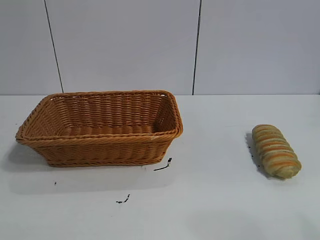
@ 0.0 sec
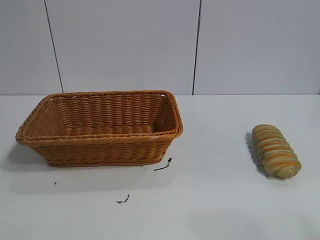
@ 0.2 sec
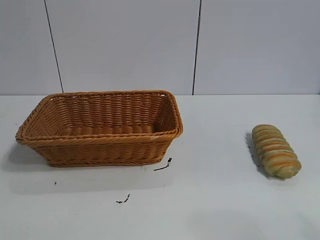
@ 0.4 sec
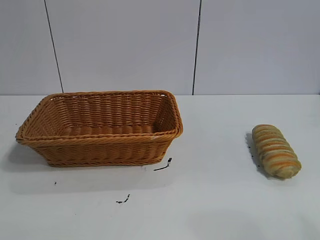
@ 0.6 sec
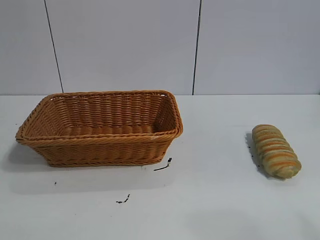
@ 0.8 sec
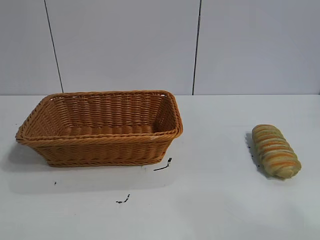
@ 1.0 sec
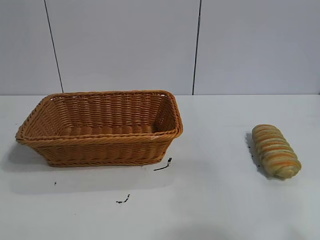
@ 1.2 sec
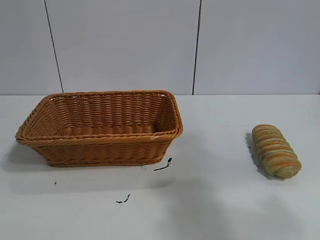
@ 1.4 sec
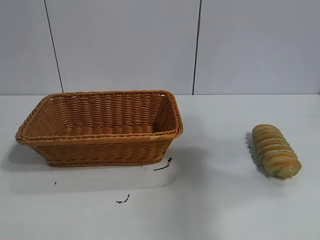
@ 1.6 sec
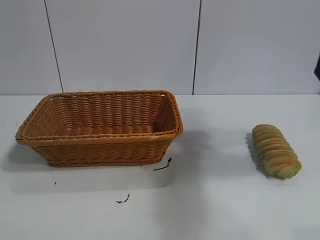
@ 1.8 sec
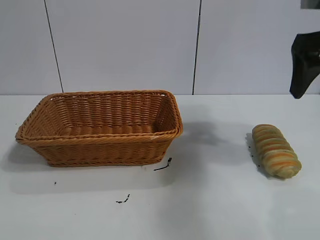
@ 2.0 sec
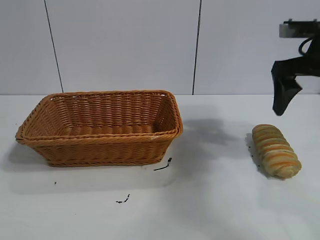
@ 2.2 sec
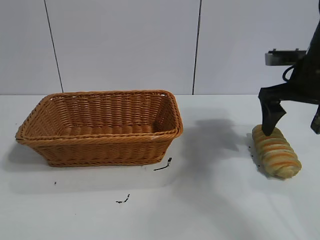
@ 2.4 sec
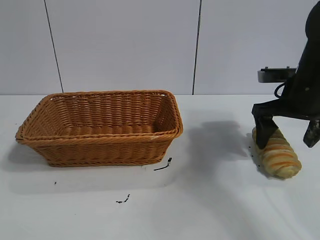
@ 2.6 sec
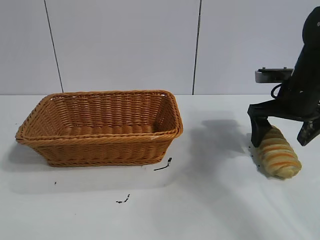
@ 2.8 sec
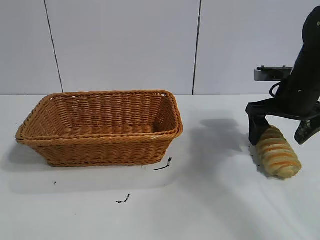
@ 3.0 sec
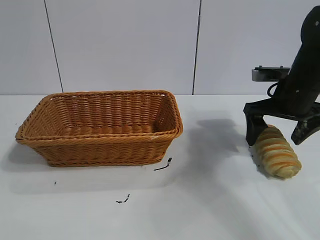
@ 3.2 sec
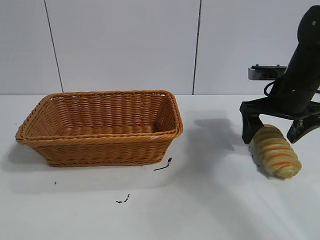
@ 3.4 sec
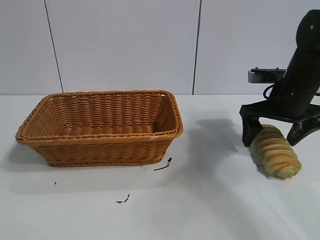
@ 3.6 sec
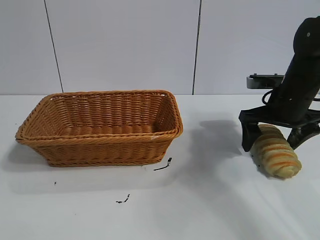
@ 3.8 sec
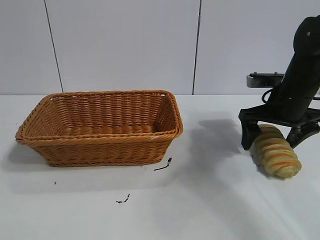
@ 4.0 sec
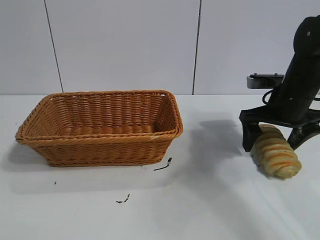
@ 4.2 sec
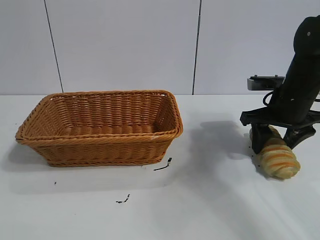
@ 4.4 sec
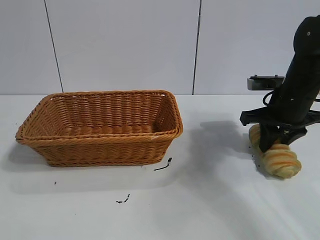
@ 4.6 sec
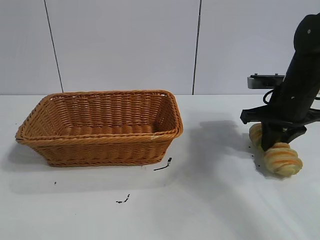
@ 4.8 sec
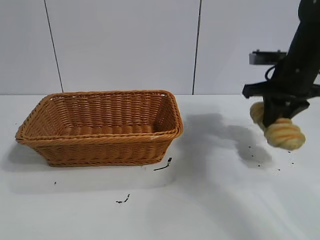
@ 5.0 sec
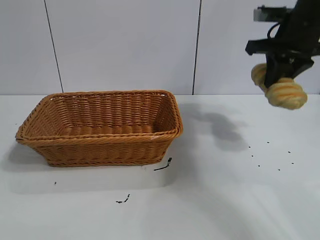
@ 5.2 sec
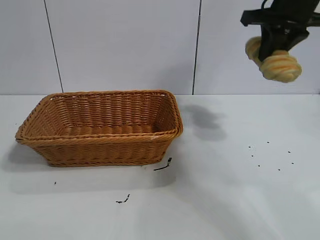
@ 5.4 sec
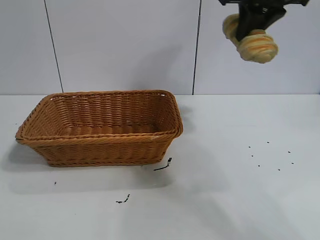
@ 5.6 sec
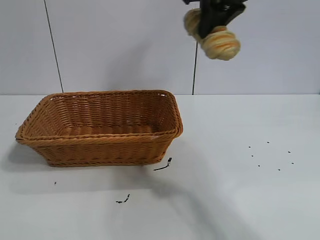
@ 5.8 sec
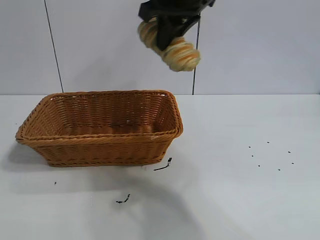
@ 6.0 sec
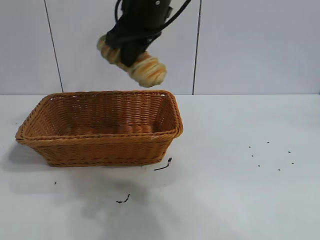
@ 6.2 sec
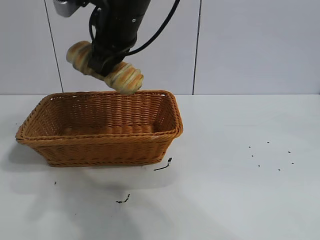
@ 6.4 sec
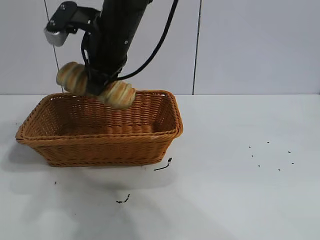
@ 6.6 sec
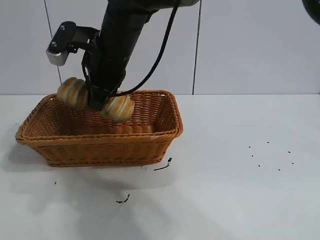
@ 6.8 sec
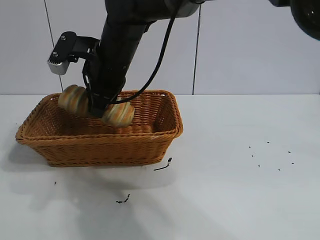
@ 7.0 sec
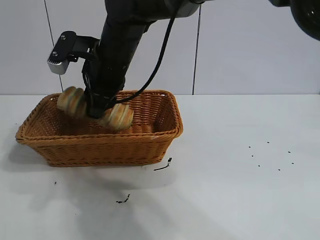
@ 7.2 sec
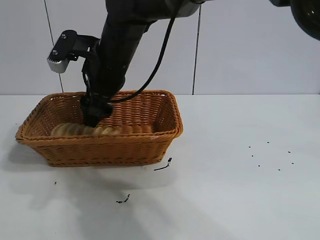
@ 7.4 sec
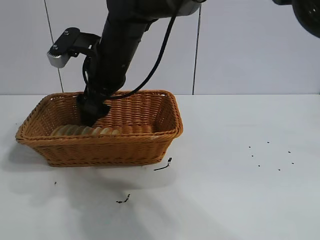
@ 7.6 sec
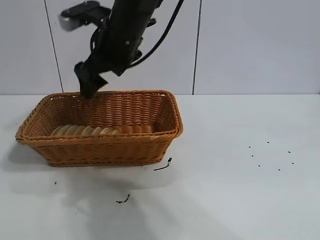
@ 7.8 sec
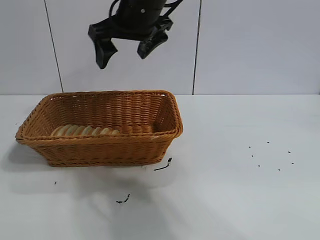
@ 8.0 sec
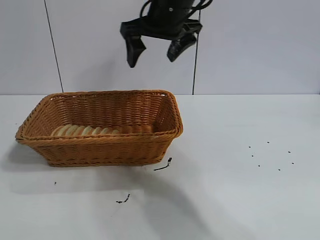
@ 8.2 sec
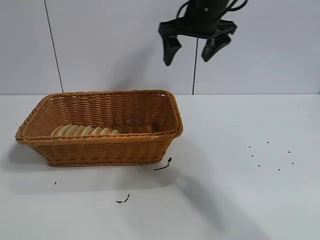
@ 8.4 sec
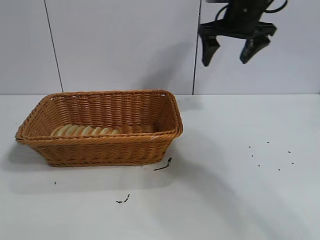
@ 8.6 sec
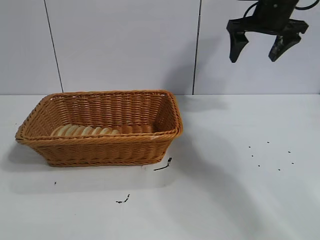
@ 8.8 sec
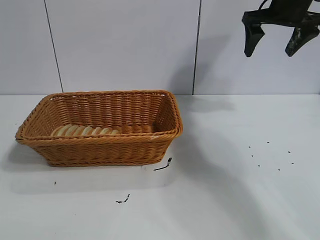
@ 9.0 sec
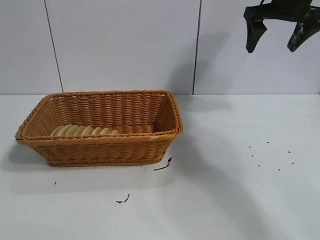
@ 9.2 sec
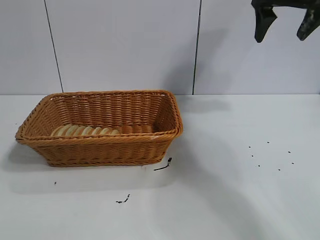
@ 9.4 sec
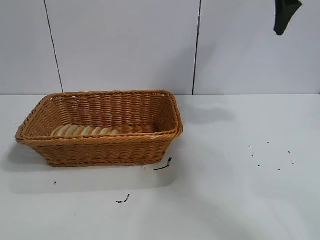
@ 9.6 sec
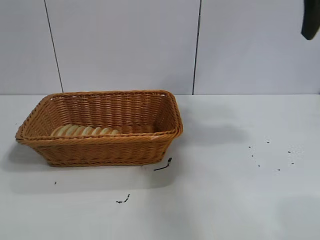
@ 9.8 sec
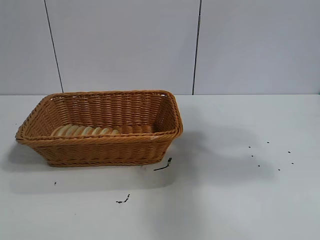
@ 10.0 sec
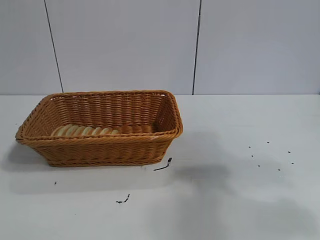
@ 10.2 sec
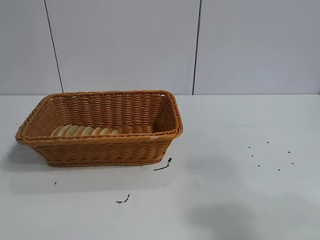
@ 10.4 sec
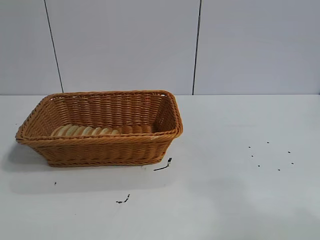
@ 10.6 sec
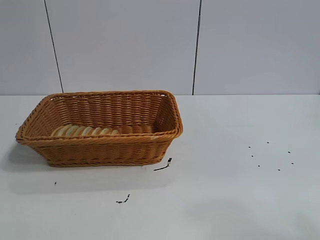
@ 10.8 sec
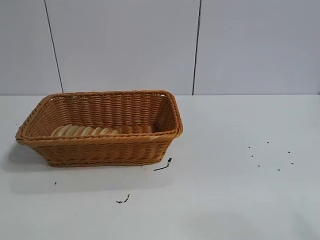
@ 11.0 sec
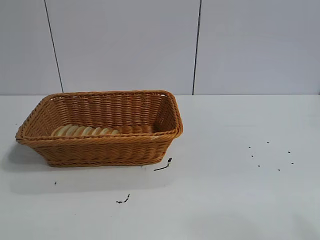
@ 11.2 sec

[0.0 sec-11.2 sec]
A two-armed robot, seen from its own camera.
Task of the whole recording: pick up the long bread and put it into the basket.
Step, 1.8 sec to 4.8 sec: Grasp the long bread with right gripper.
Step, 5.0 sec to 7.6 sec: Place the long bread in the basket with right gripper.

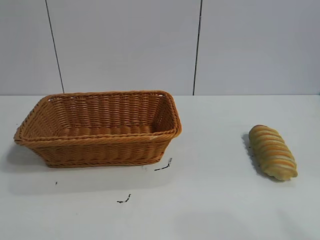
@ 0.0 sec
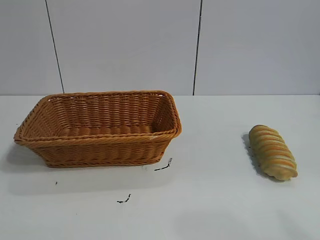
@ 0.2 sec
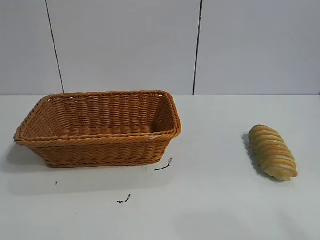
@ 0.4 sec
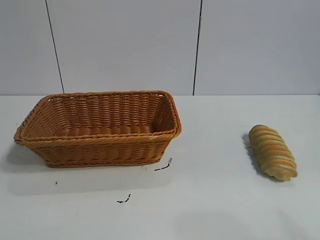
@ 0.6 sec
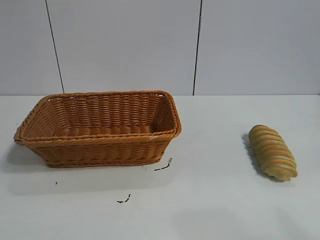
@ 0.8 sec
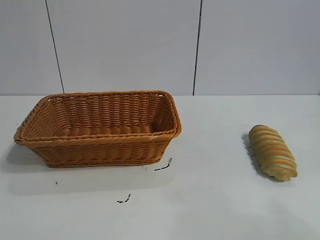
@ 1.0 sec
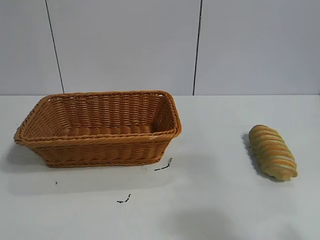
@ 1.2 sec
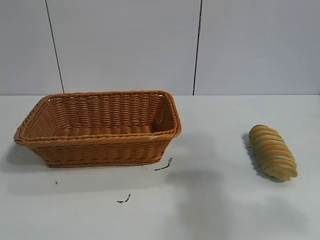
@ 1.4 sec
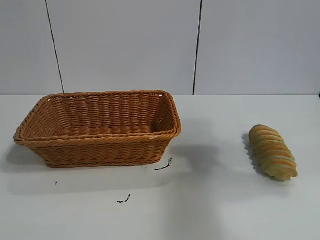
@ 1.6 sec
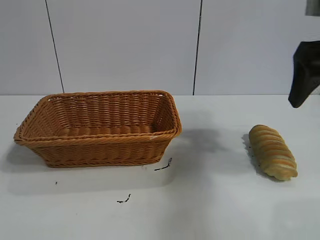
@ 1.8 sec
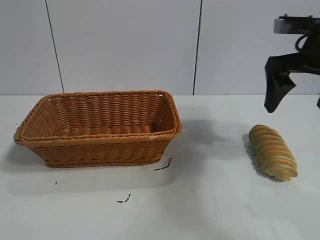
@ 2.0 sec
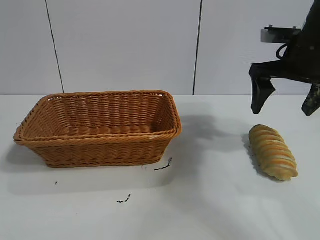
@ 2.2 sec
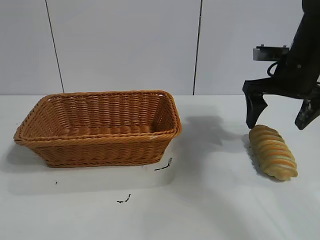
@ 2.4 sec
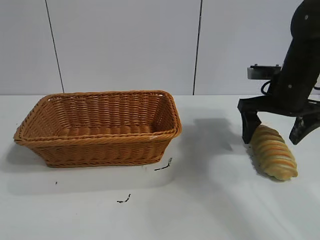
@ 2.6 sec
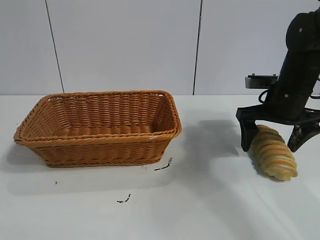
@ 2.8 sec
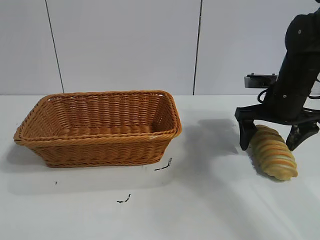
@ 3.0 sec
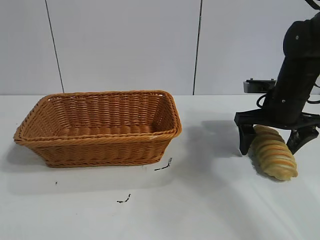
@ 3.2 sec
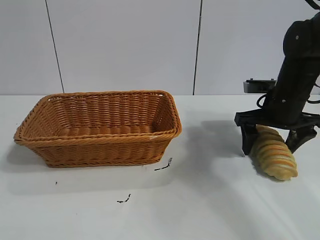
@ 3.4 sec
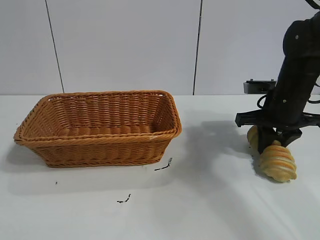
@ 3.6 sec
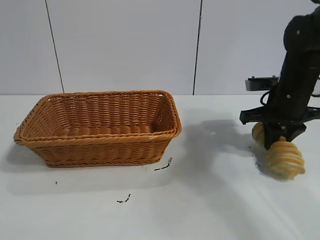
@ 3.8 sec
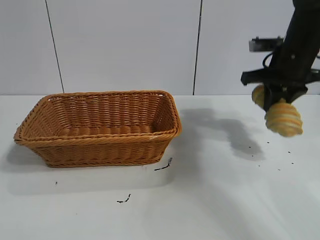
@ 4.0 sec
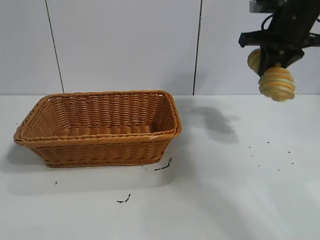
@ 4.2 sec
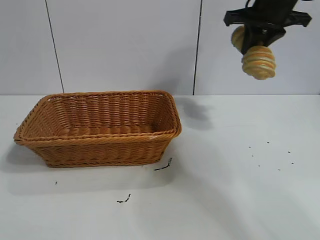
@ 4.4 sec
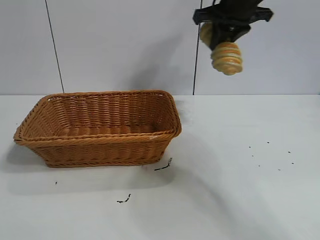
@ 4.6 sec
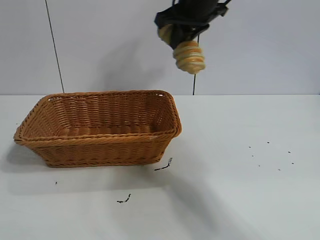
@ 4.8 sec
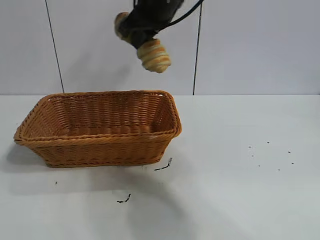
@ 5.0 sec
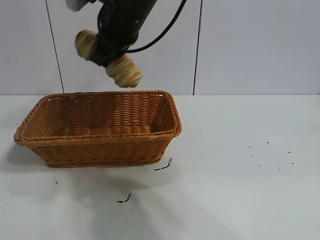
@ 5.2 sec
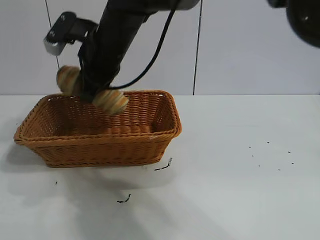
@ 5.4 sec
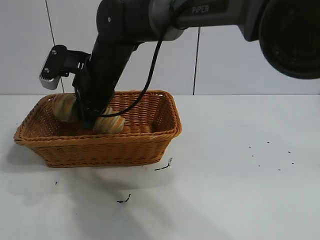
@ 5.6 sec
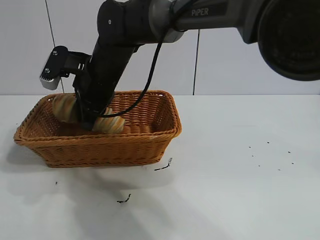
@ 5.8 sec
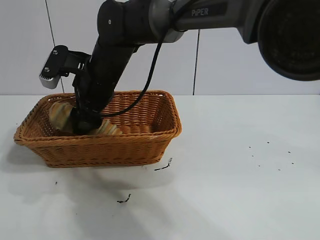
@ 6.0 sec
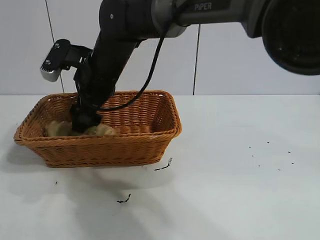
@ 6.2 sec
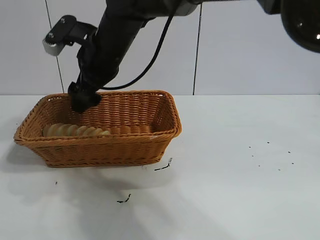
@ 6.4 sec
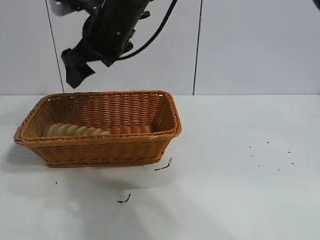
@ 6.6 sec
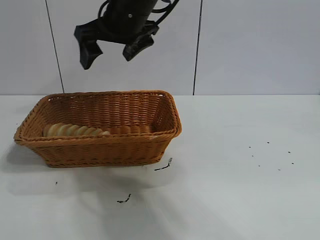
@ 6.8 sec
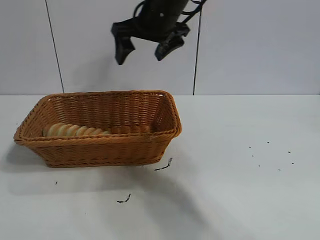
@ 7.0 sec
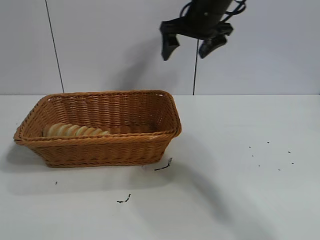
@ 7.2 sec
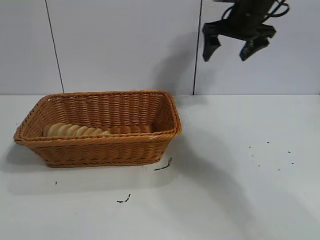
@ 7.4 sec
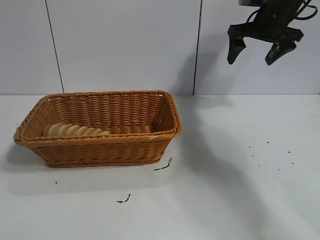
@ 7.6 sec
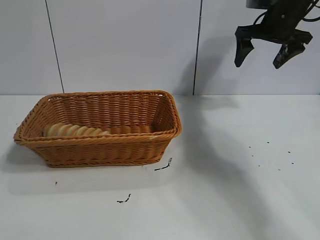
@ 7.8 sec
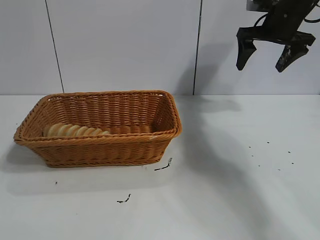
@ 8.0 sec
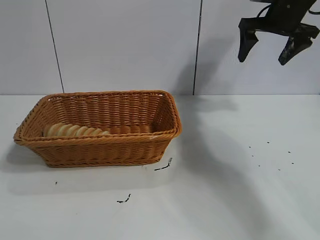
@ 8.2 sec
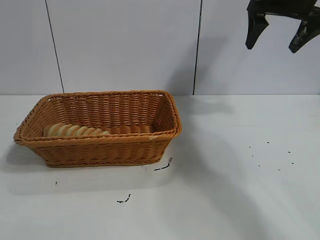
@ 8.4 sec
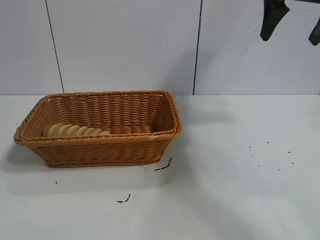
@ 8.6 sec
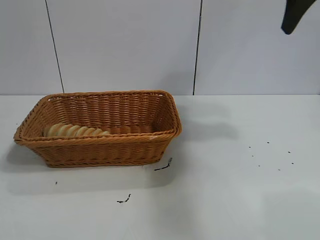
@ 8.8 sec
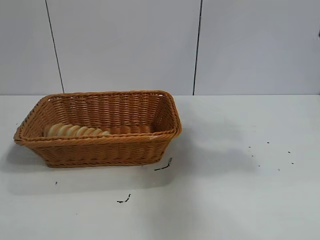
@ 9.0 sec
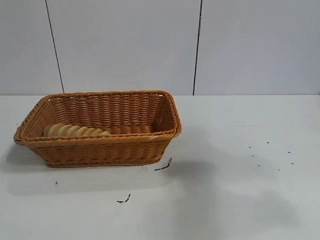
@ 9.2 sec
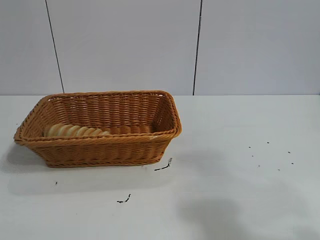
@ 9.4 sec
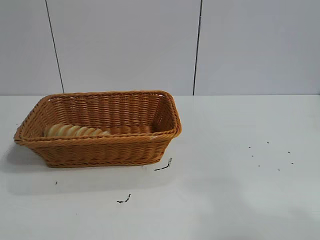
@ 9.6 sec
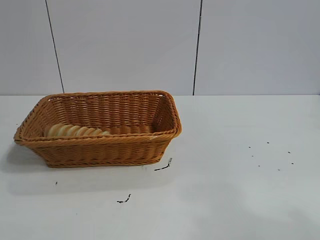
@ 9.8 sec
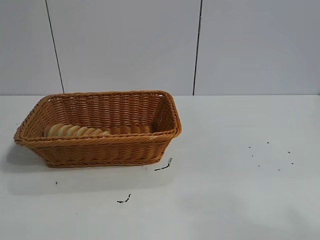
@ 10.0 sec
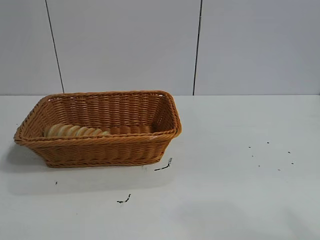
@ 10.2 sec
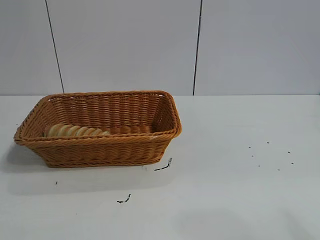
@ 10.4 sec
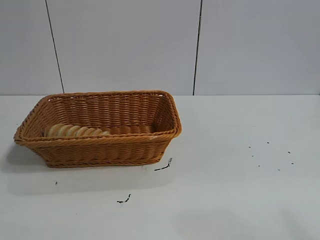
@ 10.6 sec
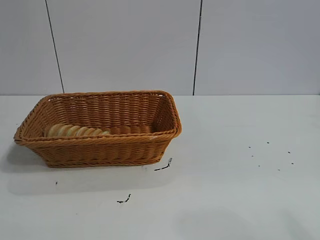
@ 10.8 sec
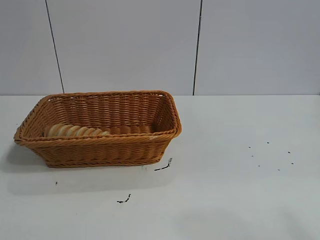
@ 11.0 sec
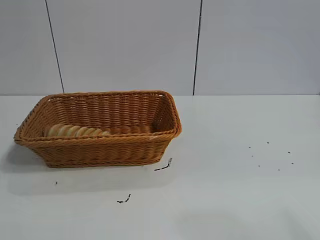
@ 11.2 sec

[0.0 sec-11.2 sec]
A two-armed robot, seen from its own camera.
Task of the whole recording: pick up the long bread and put it into the basket.
Step, 1.6 sec to 3.6 sec: Grasp the long bread with right gripper.
Step, 4.0 sec to 6.4 sec: Place the long bread in the basket with right gripper.
